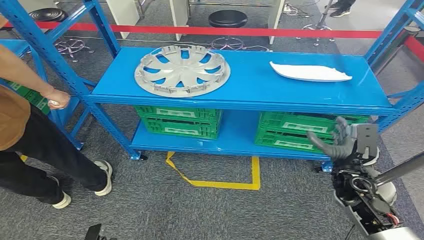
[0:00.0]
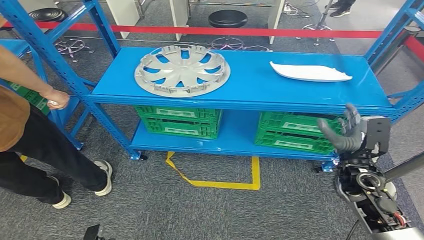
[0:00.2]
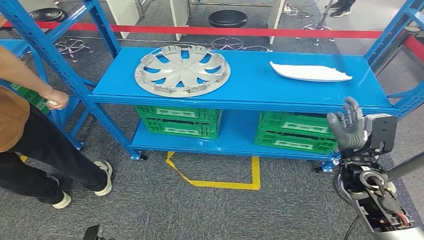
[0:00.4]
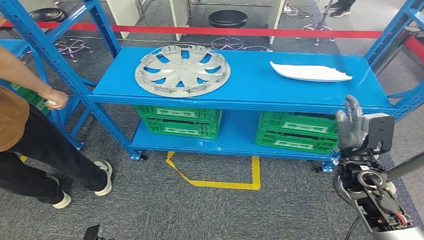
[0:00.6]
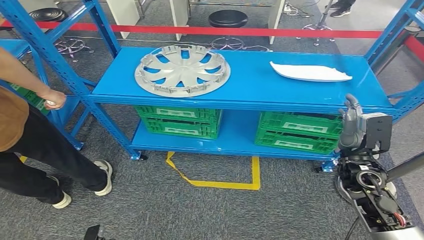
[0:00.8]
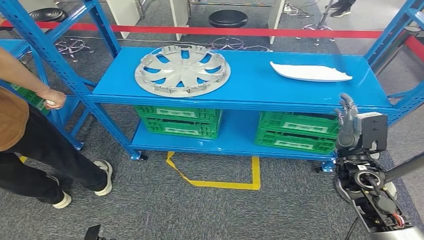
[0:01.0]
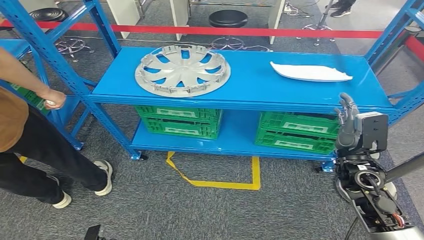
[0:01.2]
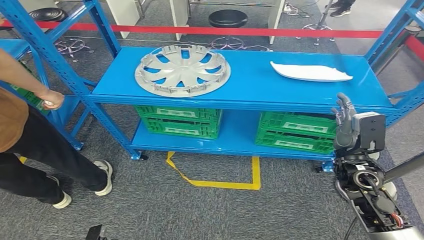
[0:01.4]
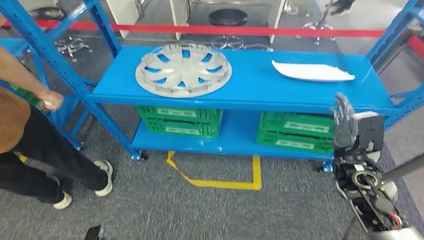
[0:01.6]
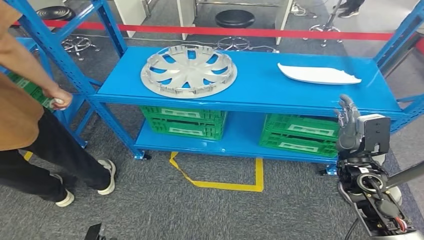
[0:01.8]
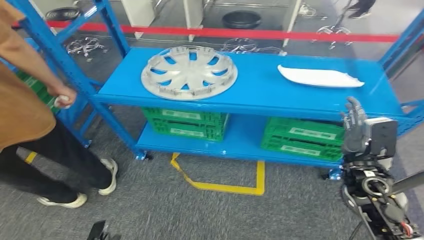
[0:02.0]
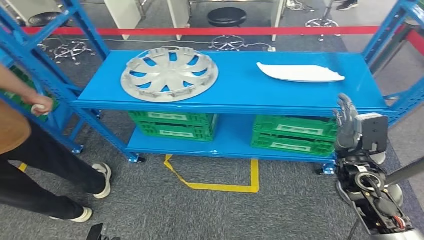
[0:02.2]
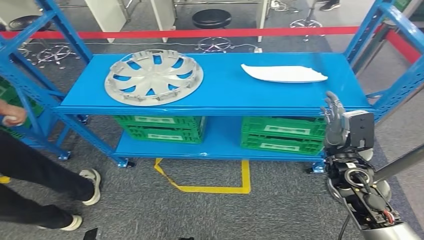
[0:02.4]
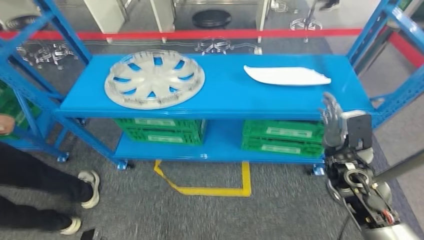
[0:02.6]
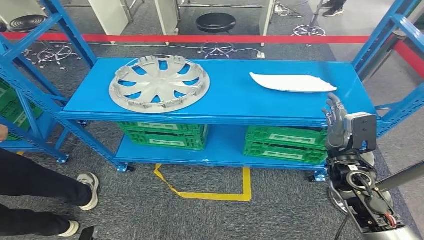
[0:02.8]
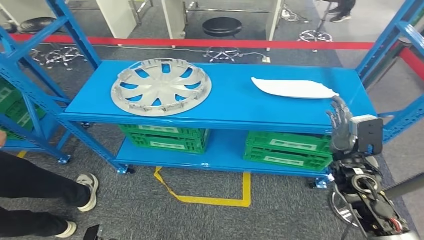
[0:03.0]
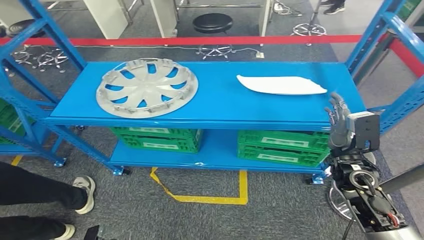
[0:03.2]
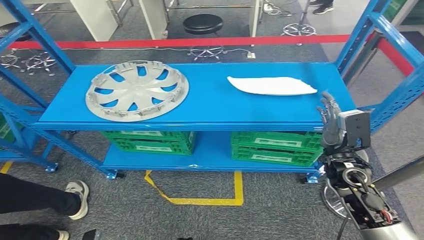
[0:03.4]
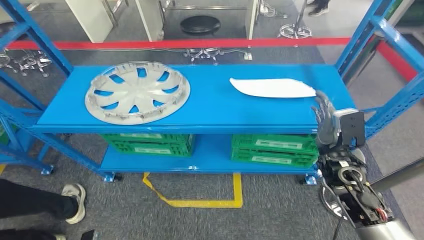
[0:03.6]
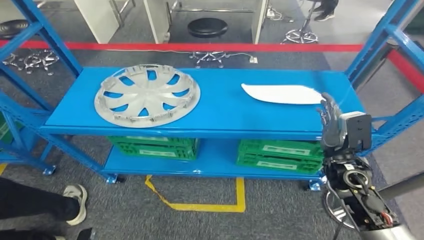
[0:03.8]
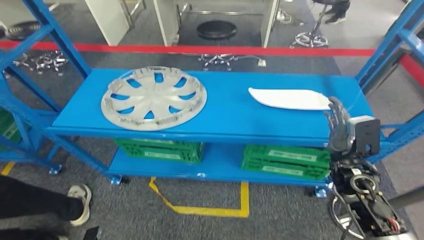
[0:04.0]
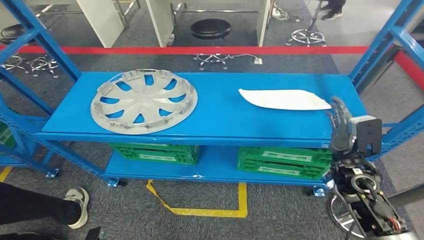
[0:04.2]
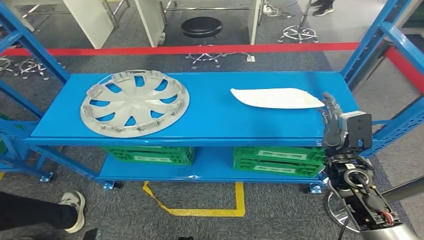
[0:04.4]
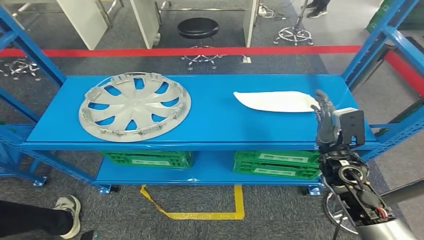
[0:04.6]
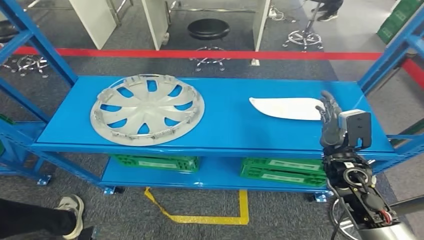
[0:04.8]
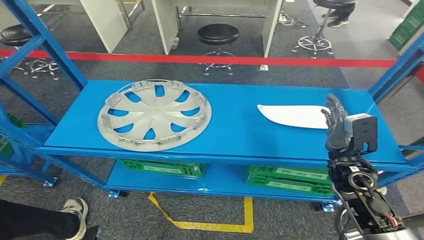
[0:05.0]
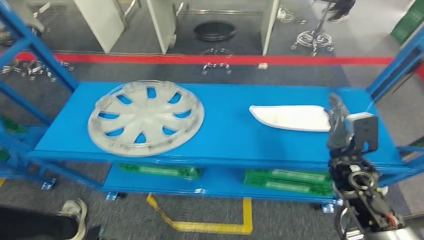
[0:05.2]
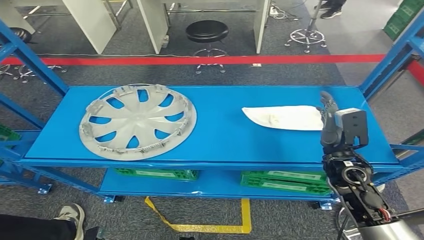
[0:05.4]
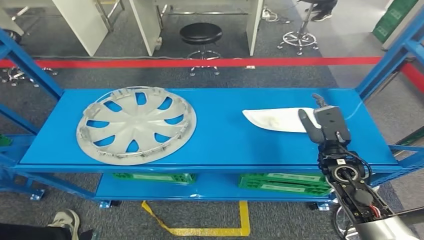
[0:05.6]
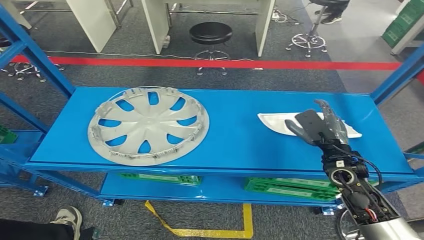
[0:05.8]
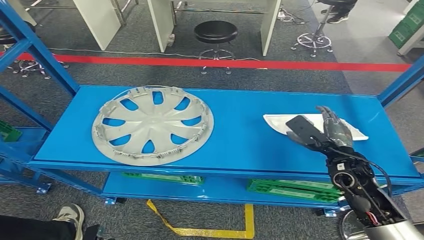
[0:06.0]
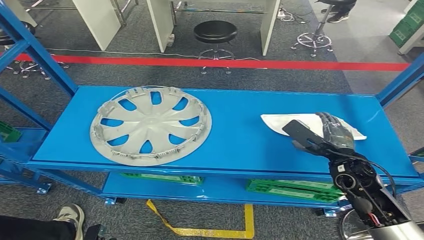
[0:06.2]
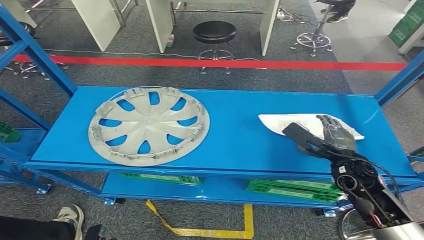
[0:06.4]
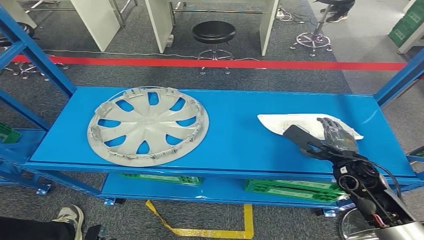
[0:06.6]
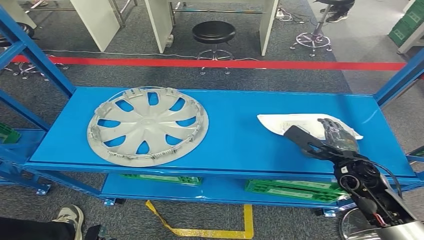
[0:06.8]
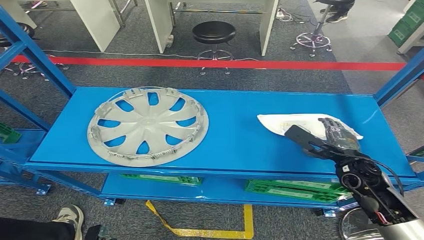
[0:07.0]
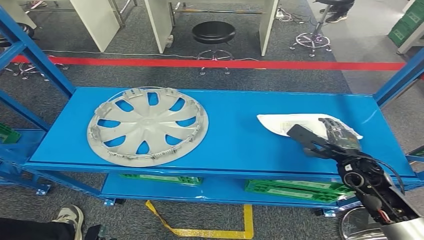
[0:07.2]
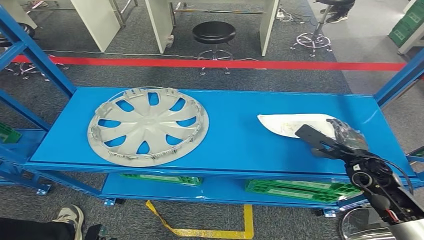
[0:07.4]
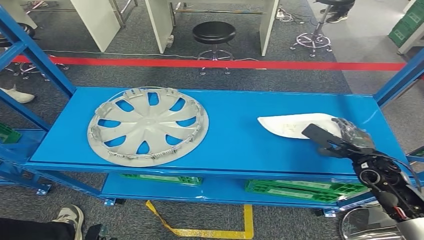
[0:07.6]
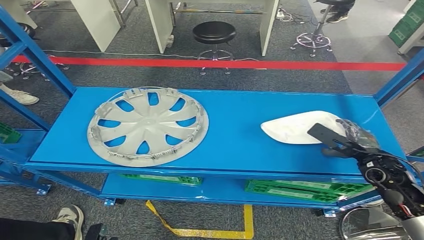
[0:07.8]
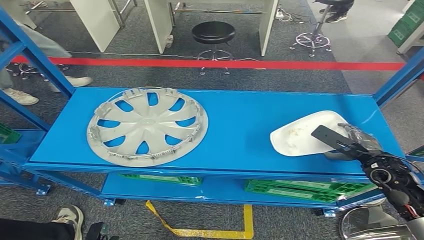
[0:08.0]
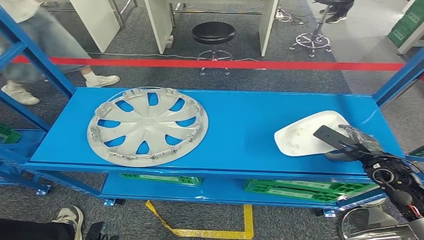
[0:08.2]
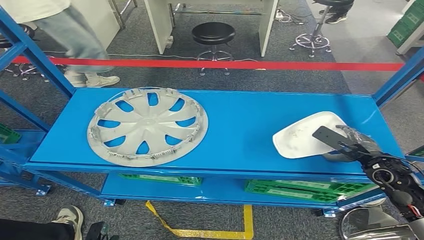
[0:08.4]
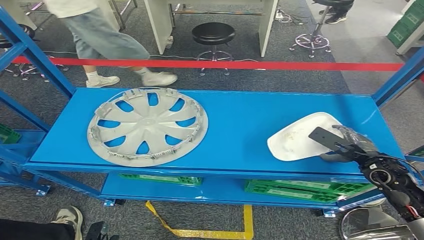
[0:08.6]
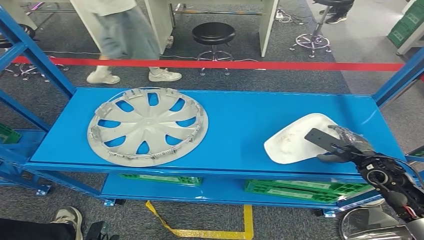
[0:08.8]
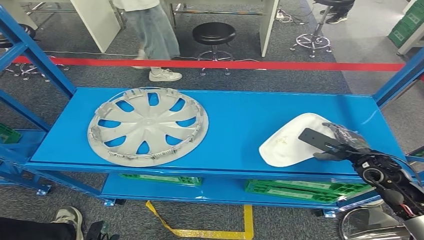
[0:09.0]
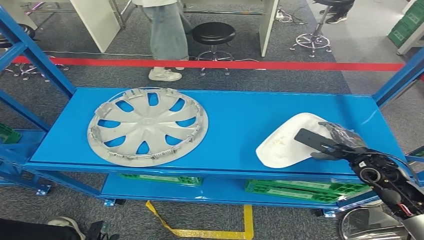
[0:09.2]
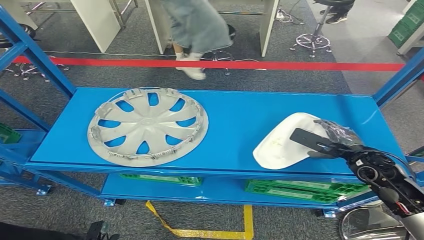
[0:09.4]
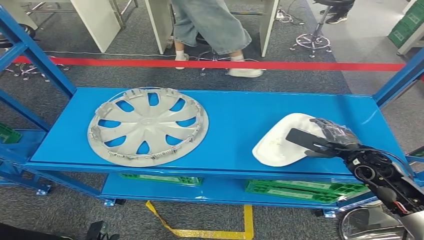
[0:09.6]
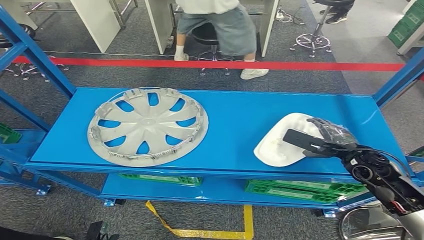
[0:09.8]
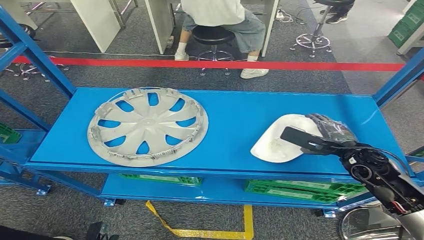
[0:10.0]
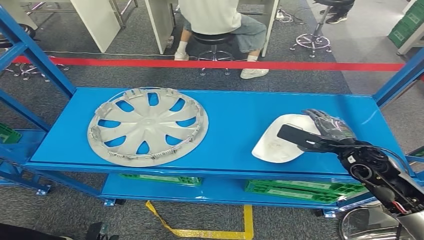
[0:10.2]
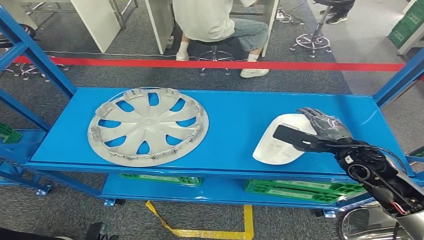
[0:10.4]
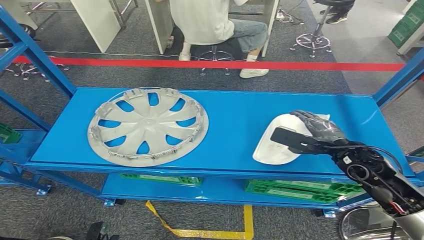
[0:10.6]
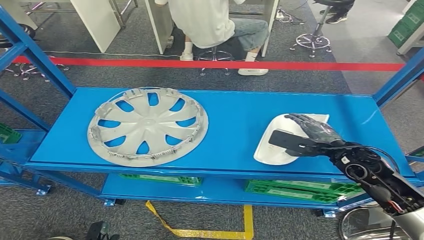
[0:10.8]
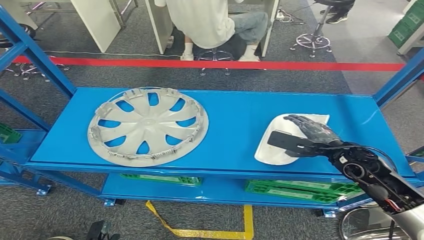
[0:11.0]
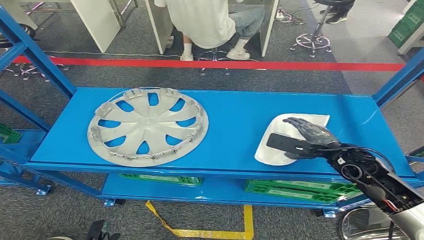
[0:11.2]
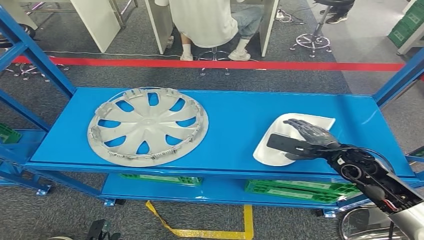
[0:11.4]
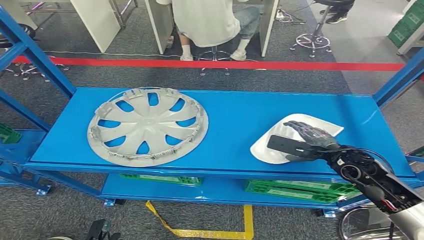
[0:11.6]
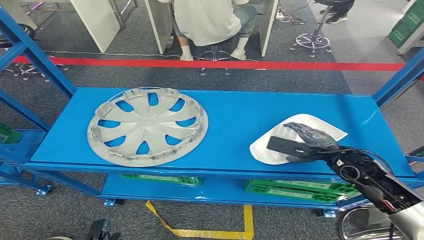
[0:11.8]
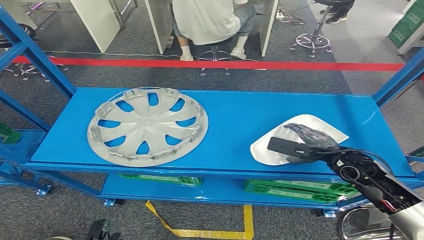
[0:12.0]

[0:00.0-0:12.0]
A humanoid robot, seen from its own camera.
0:06.0 to 0:07.6: The right hand moves to the right, approximately 5 cm.
0:07.6 to 0:09.0: The hands make only small movements.
0:09.0 to 0:10.4: The right hand travels to the left by some 5 cm.
0:10.4 to 0:12.0: The hands stay close to where they were, moving slightly.

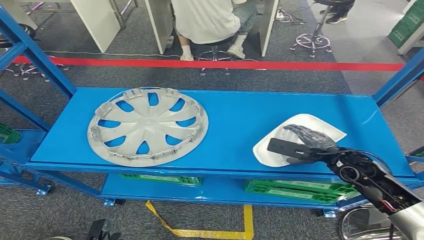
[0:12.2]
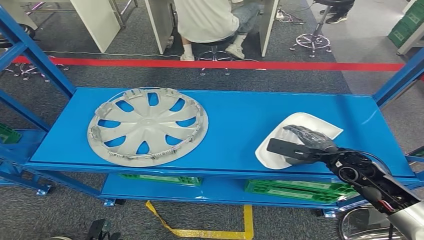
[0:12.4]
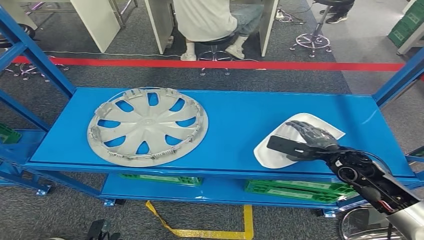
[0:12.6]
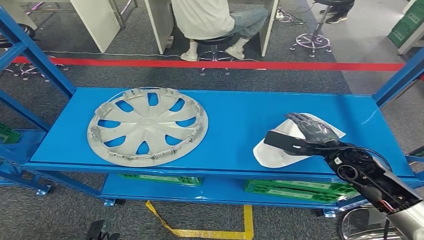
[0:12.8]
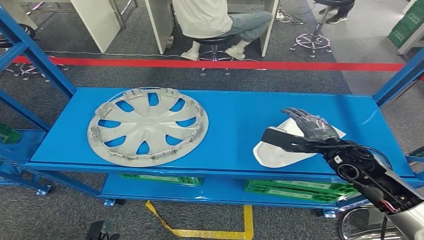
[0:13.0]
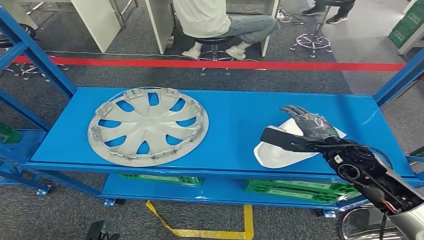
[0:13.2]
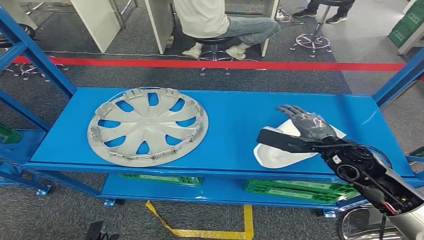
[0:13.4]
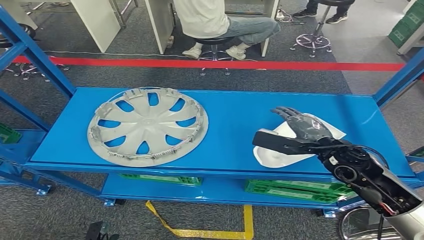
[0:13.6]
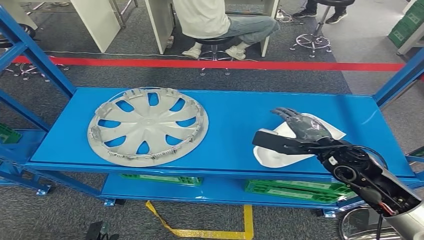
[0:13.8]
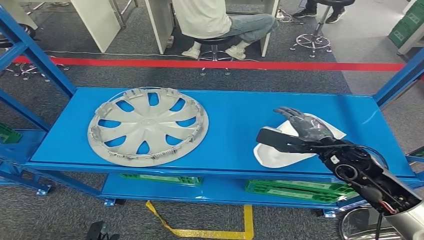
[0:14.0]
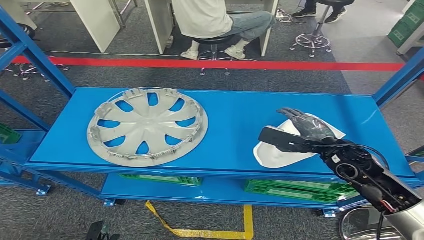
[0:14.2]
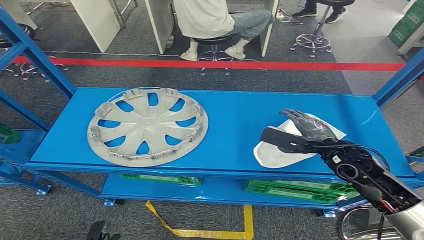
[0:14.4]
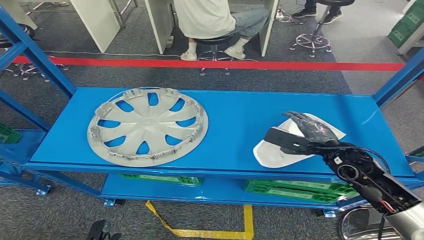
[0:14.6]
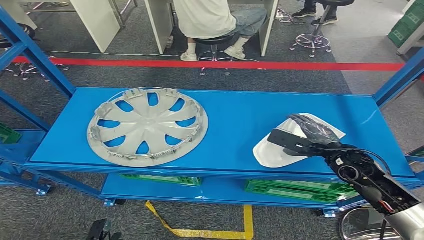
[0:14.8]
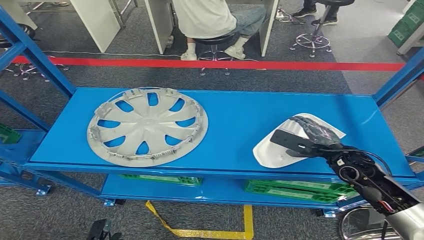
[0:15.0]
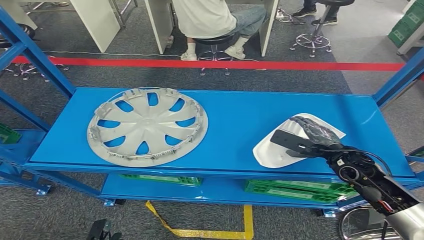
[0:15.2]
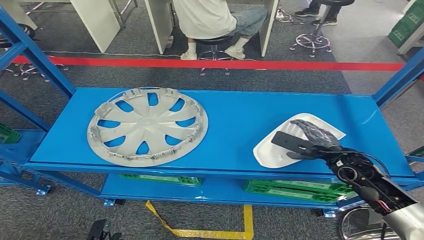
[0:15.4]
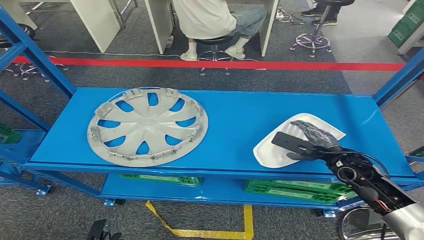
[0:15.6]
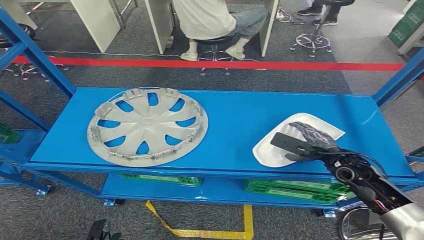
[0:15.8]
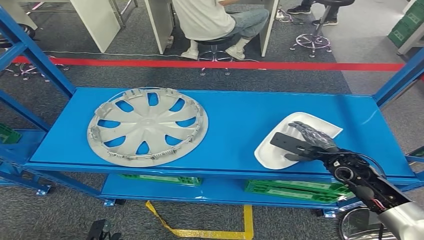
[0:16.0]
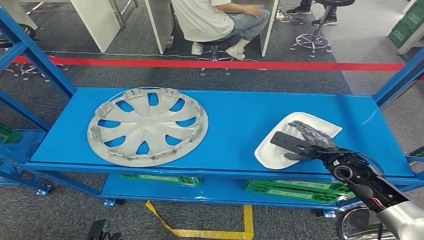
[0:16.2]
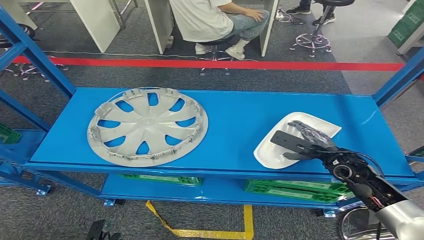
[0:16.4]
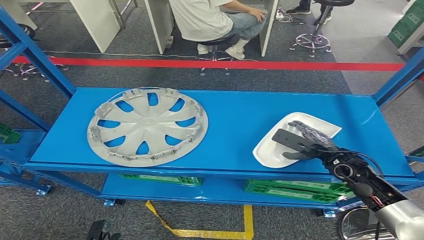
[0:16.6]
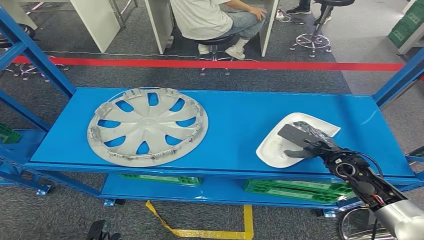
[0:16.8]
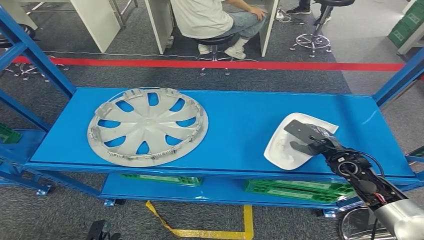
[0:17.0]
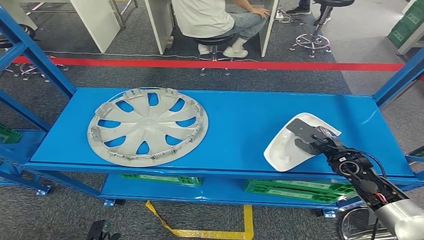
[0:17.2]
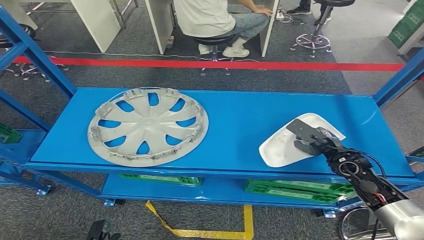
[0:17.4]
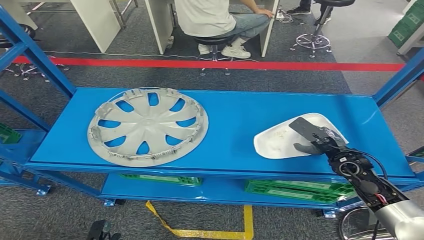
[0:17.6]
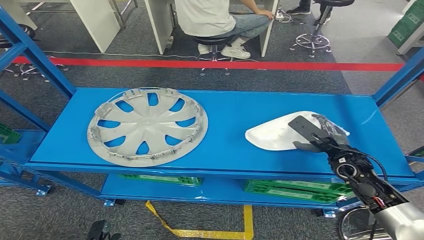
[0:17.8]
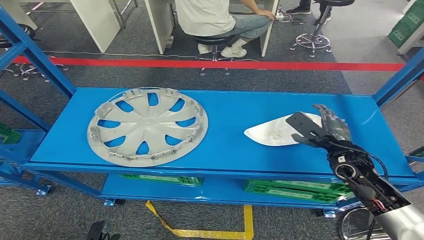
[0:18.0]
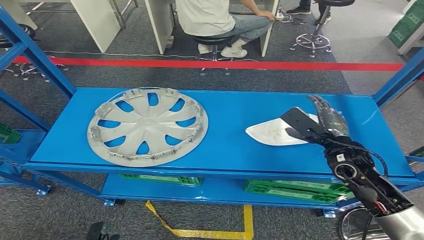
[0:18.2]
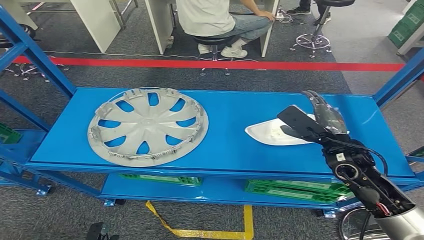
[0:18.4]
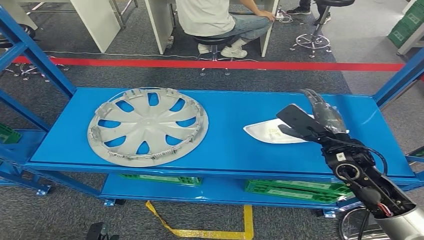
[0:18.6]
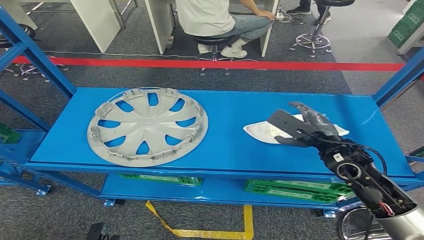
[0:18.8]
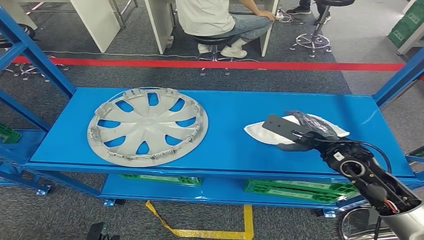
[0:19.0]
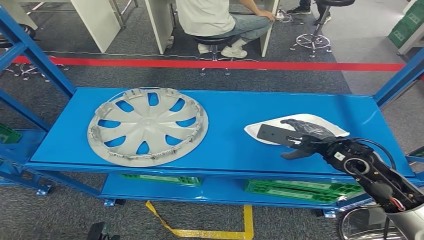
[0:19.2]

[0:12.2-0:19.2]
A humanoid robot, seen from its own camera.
0:12.2 to 0:13.6: The right hand goes approximately 5 cm upward.
0:13.6 to 0:15.0: The right hand travels downward by some 5 cm.
0:15.0 to 0:16.4: The hands stay close to where they were, moving slightly.
0:17.8 to 0:19.2: The right hand is displaced upward by about 10 cm.
